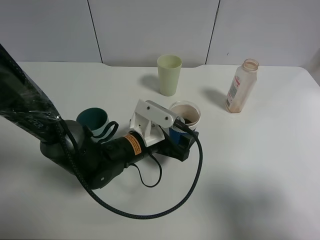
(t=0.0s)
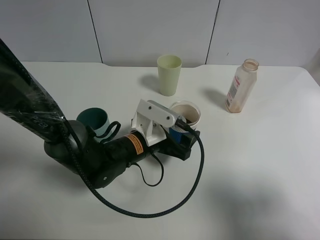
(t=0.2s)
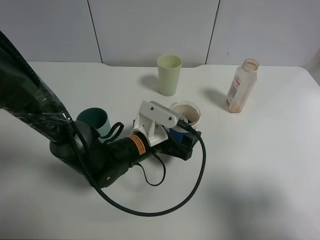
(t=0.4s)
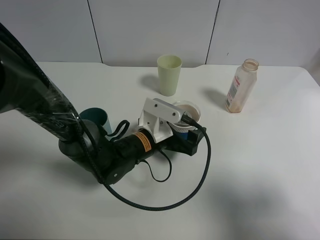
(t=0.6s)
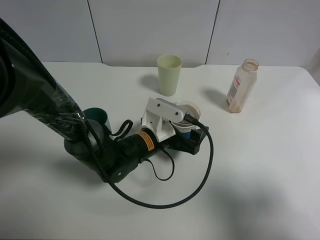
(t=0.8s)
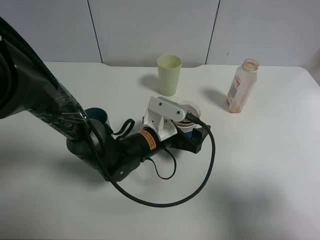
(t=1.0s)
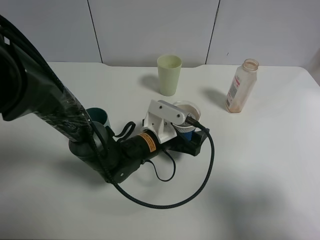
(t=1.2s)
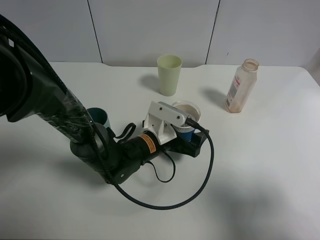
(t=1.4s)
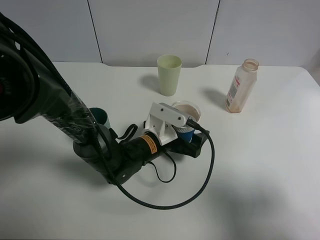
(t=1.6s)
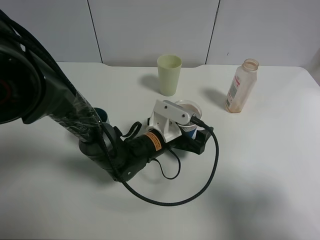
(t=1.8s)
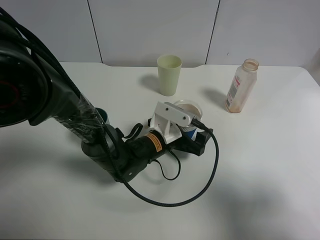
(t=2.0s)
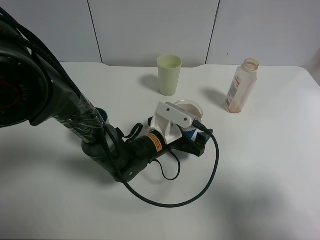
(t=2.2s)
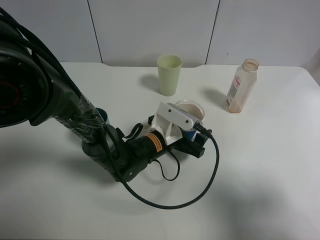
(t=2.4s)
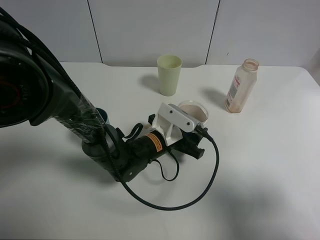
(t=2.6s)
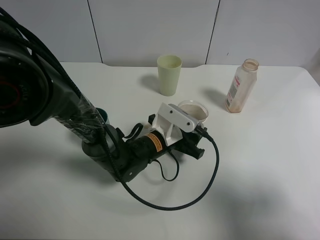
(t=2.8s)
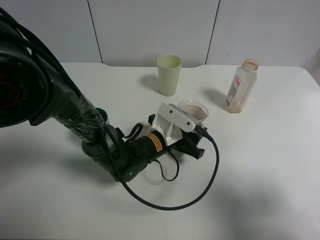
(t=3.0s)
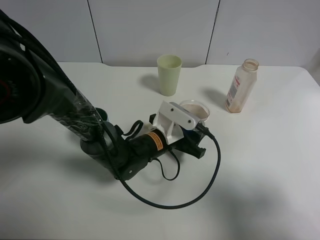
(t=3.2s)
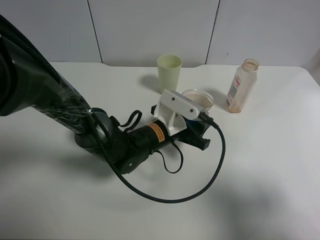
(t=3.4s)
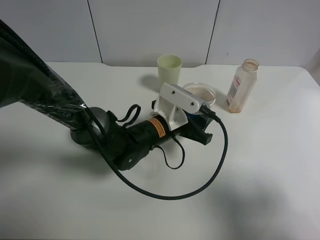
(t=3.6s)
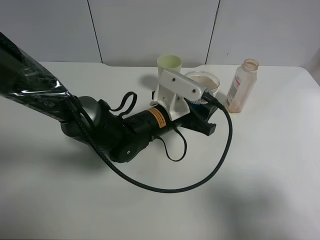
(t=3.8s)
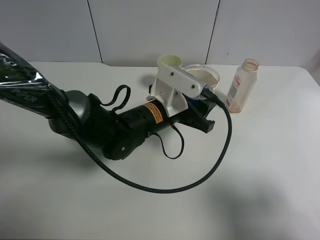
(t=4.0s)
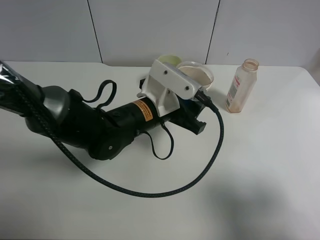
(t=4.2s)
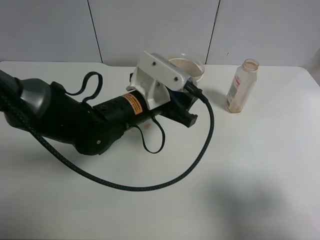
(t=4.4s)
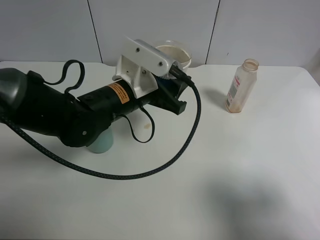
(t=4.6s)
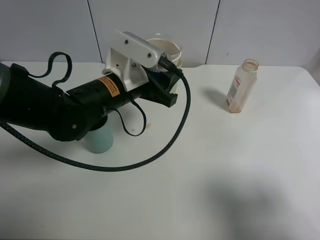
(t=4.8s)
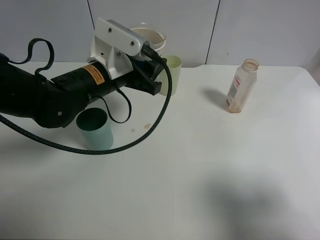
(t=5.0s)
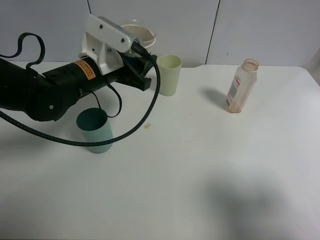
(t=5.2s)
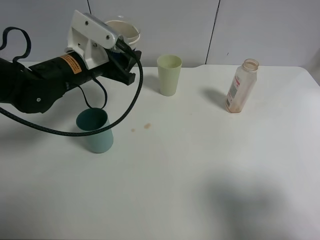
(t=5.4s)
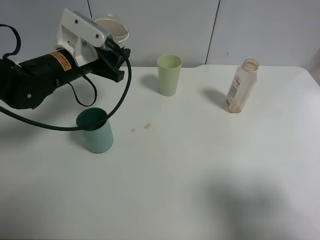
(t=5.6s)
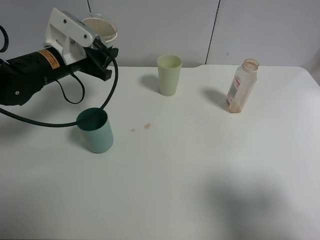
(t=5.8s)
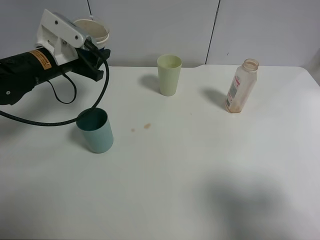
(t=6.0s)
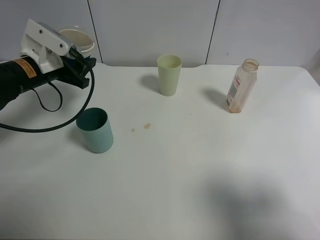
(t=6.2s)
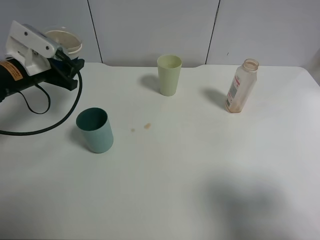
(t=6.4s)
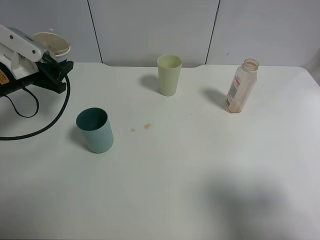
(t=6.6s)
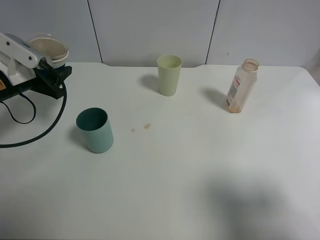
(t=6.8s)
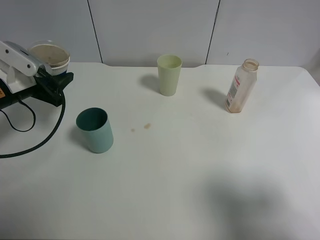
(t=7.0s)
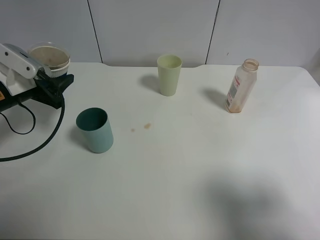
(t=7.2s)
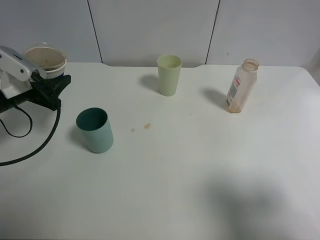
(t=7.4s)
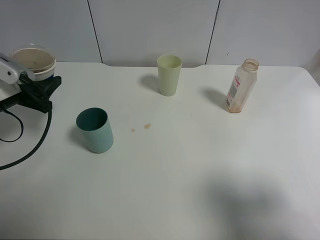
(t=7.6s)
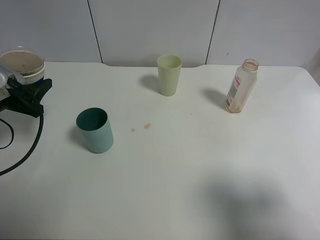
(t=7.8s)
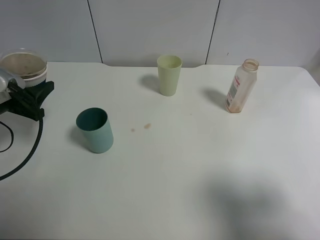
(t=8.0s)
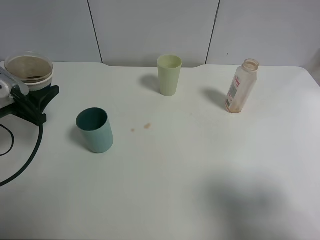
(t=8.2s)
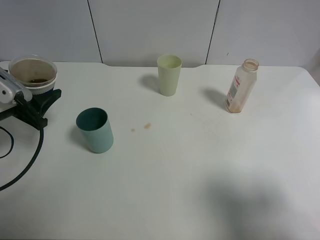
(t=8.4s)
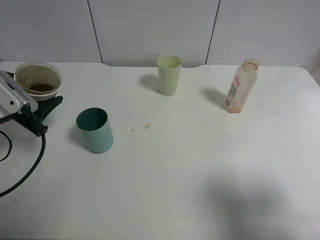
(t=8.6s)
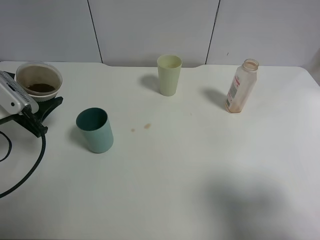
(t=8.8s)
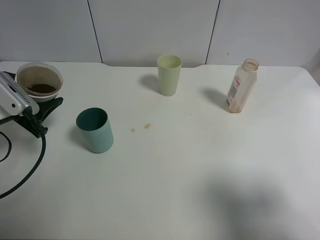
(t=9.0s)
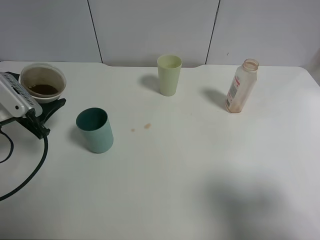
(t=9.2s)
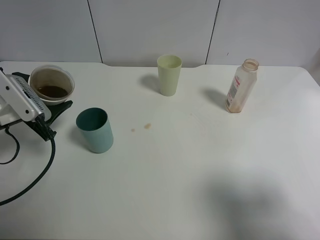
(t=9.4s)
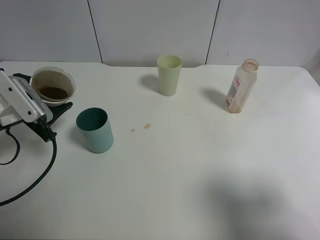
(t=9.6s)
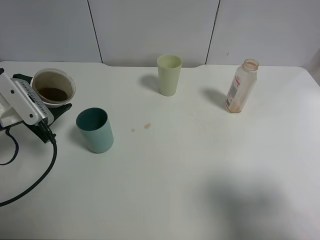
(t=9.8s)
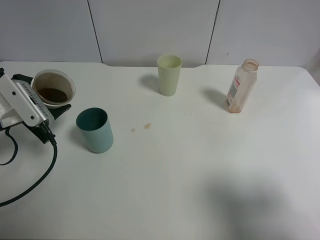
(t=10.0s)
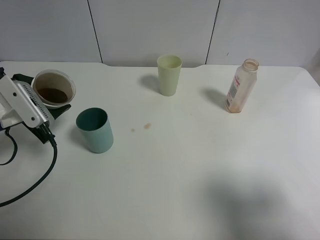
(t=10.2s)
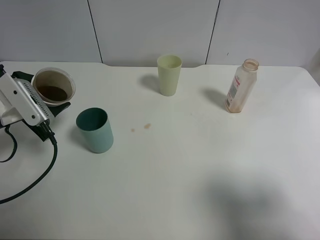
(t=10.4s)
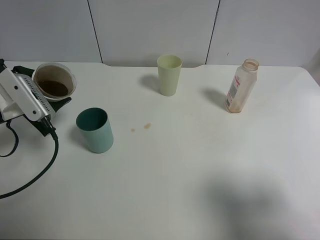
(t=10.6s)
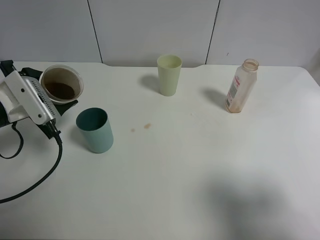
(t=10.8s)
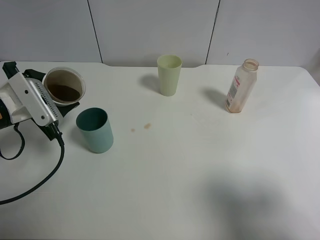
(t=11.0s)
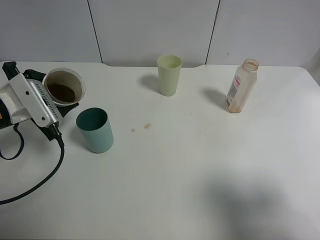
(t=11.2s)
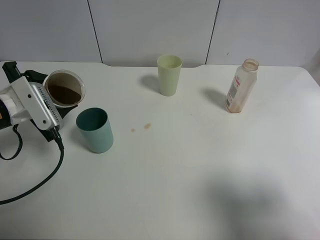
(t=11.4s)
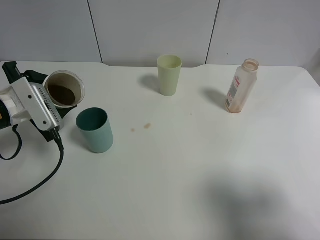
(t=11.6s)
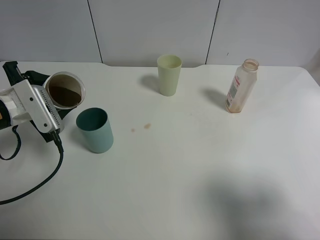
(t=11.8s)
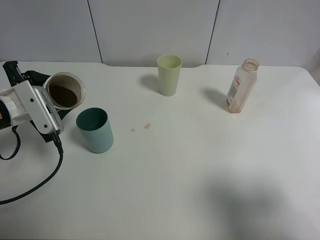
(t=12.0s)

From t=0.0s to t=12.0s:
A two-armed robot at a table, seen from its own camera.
Task of the whole recording: use a clamp to hold the bottle of the drink, pour the beverage into a random cup, then clamp the cup containing the drink and pour the drink into another random cup.
Step, from t=0.0s to t=3.2s: Pick up the paper cup with left gripper.
From t=0.0s to t=1.6s: There are only small adjustments of the grippers.
From t=1.6s to t=3.0s: The left gripper closes its fingers.
From t=3.0s to t=4.4s: The left gripper travels upward by some 10 cm.
From t=4.4s to t=6.0s: The left gripper shifts approximately 20 cm to the left and forward.
From t=6.0s to t=7.6s: The left gripper shifts about 10 cm to the left and backward.
From t=7.6s to t=9.0s: The grippers make only small movements.
From t=9.0s to t=10.4s: The grippers move only a little.
From t=10.4s to t=12.0s: The grippers make only small movements.

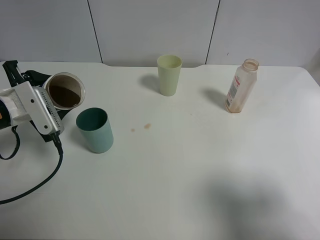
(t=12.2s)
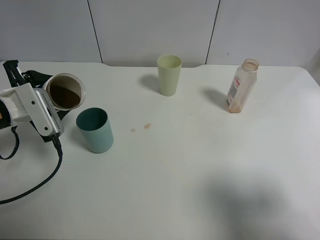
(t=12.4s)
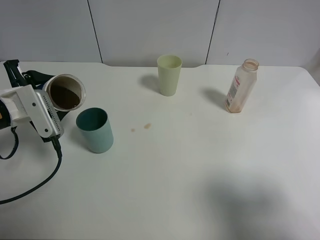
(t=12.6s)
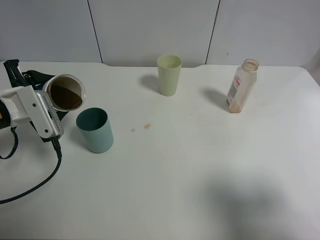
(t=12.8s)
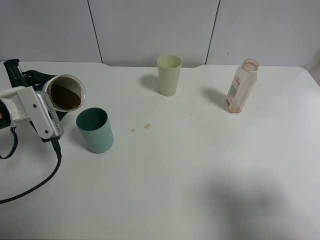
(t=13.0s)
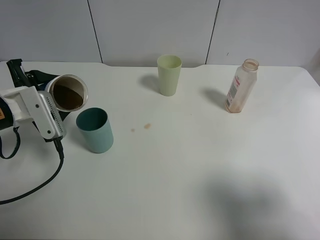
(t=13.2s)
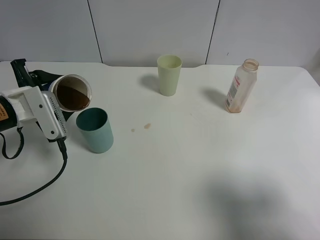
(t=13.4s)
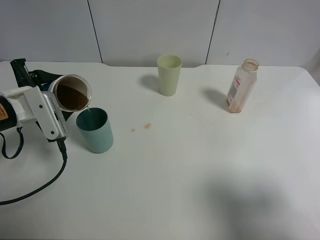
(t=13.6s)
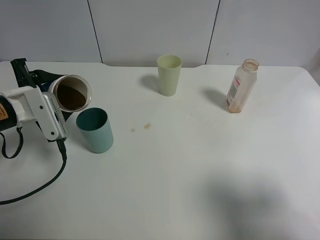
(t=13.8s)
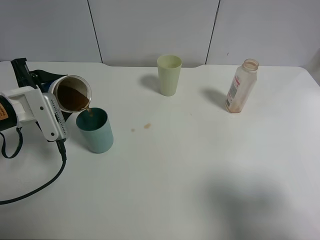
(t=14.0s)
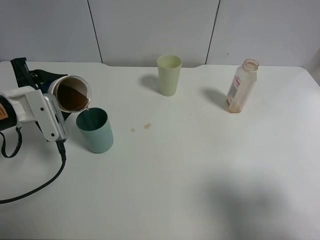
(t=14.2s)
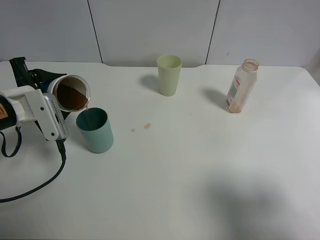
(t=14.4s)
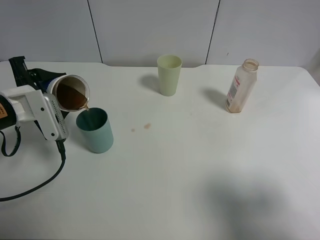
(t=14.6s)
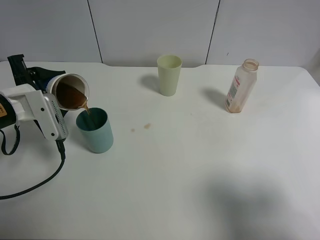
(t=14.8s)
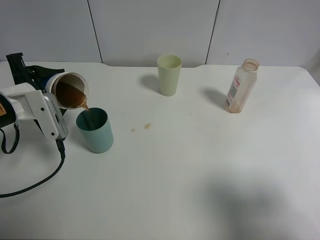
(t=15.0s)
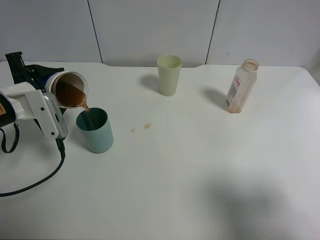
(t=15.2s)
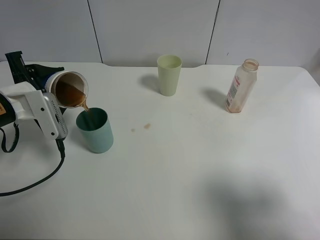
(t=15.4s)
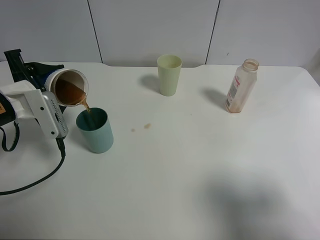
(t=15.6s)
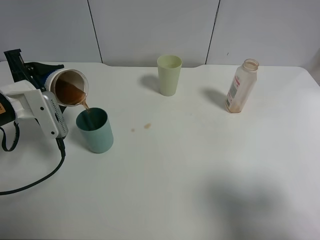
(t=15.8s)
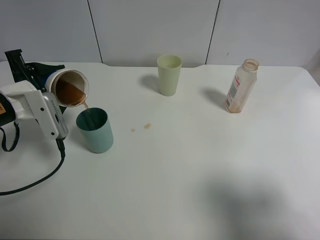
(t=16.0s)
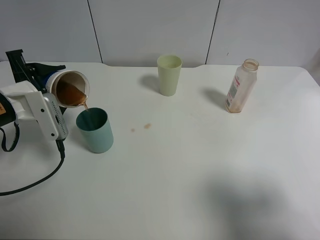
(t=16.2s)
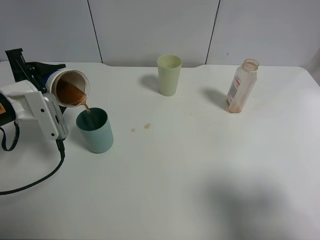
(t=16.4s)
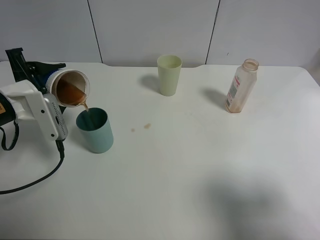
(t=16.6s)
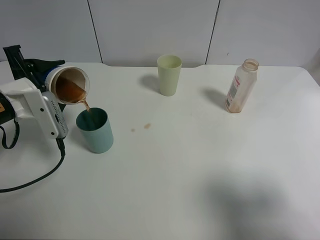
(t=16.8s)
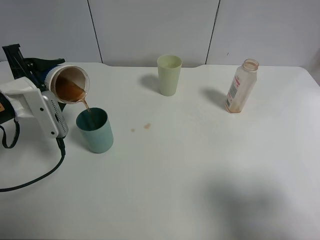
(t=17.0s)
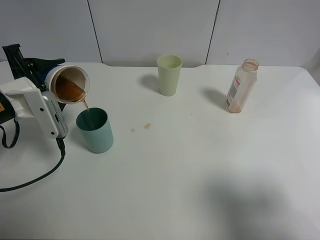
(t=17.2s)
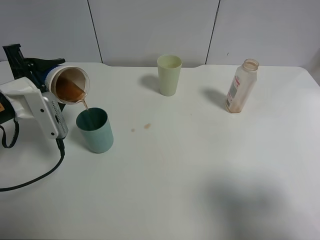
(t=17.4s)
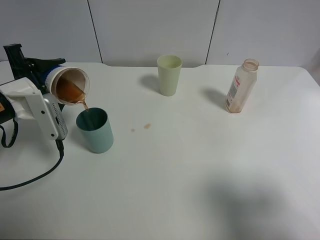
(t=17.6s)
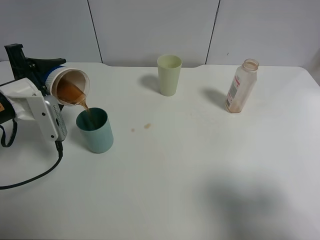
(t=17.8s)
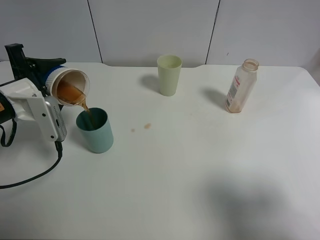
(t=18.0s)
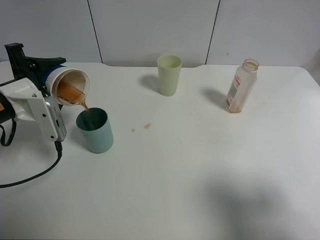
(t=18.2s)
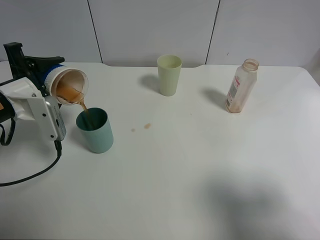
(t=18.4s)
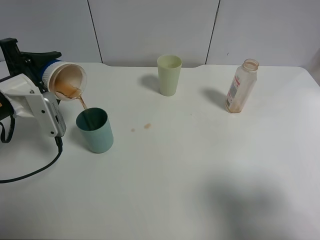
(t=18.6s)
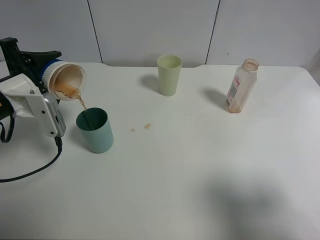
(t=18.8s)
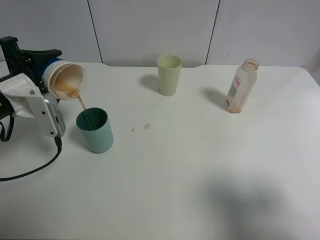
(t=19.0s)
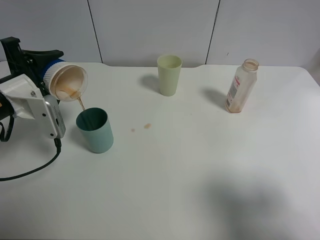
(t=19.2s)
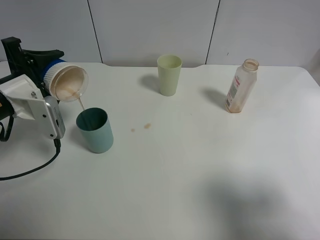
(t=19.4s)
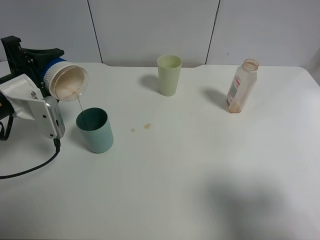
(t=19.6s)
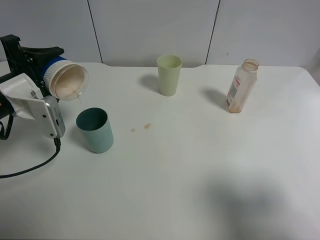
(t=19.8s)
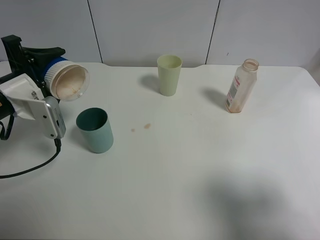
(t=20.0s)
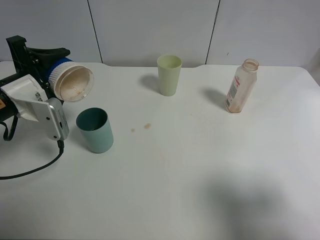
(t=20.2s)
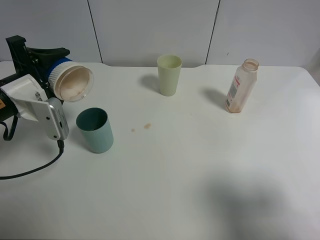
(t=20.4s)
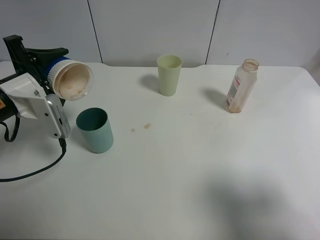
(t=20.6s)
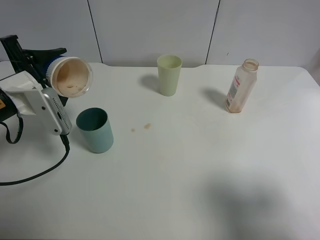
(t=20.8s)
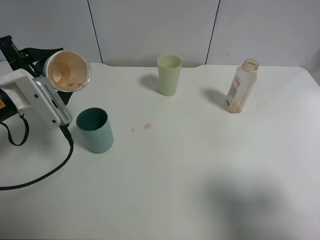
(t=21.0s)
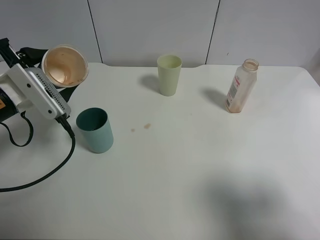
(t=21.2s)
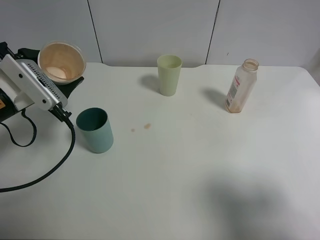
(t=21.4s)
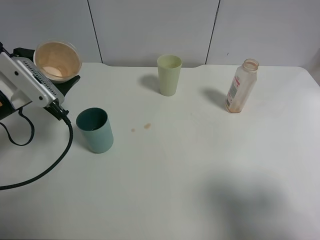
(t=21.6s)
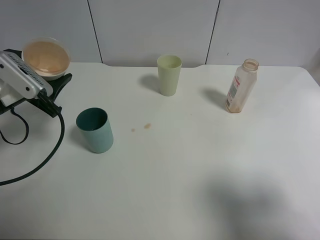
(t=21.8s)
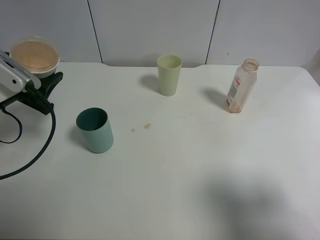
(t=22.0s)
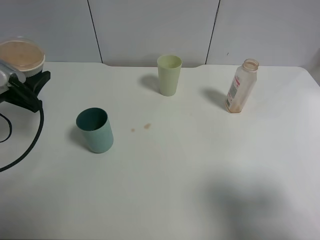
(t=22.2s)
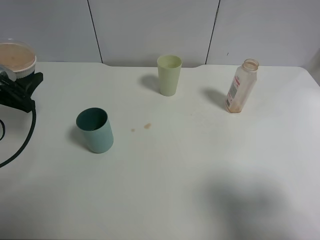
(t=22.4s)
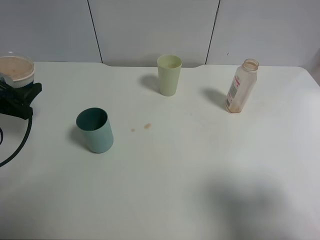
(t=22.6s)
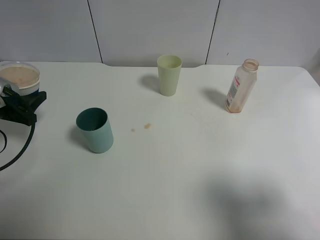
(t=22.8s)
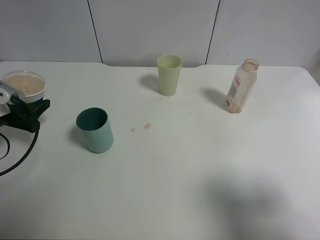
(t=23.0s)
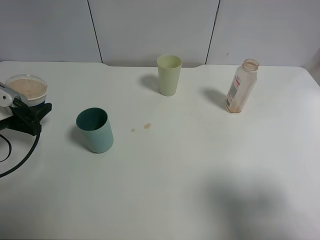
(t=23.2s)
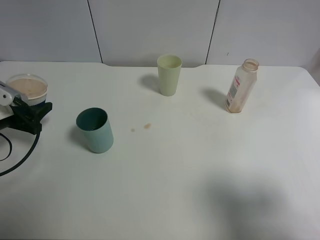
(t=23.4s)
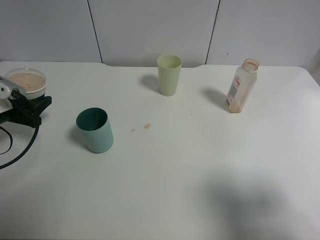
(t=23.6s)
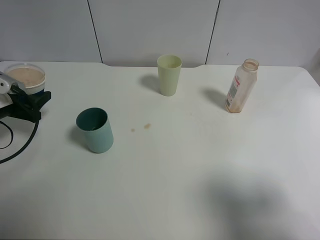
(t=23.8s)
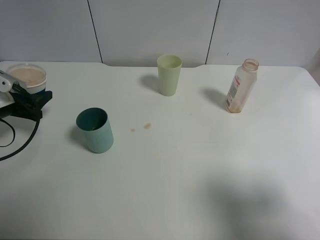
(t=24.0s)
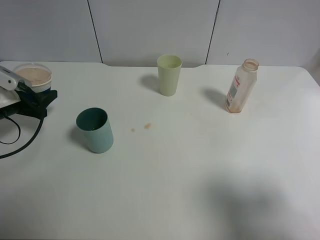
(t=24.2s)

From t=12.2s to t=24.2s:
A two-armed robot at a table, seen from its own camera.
Task of the whole recording: use a clamp to hold the bottle of the drink, pour the beverage into a random cup, then clamp the cup containing the drink and pour the drink into another random cup.
Step, from t=12.2s to t=21.2s: Pour the drink into the paper cup with left gripper.
From t=12.2s to t=15.2s: The grippers move only a little.
From t=15.2s to t=18.2s: The grippers make only small movements.
From t=18.2s to t=19.8s: There are only small adjustments of the grippers.
From t=21.2s to t=22.6s: The left gripper shifts roughly 10 cm to the left.
From t=22.6s to t=24.2s: The left gripper changes place by approximately 5 cm.
